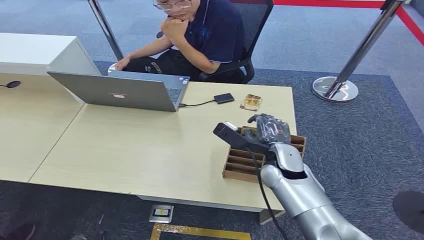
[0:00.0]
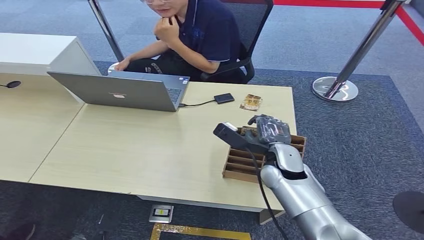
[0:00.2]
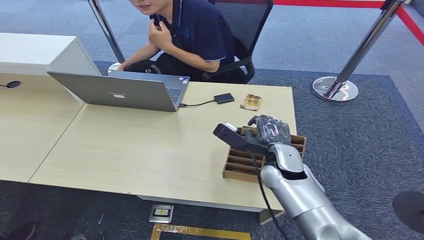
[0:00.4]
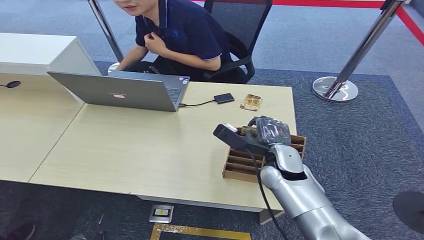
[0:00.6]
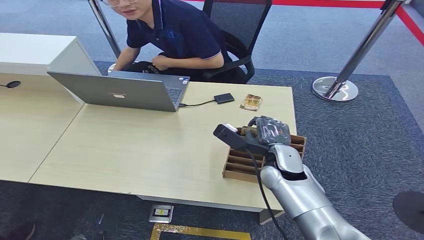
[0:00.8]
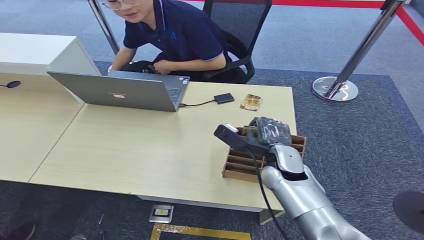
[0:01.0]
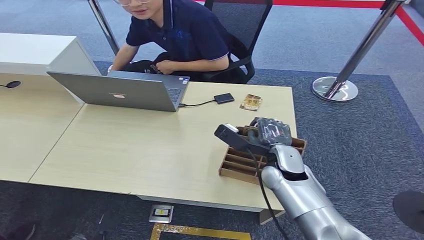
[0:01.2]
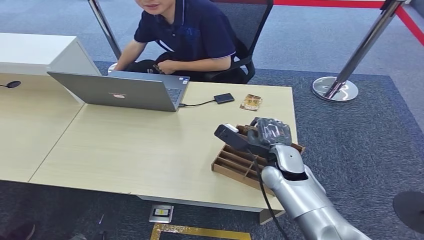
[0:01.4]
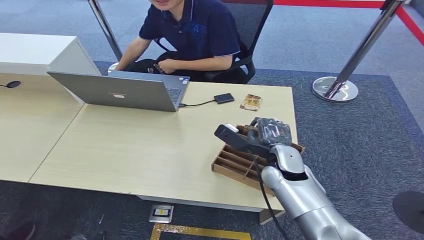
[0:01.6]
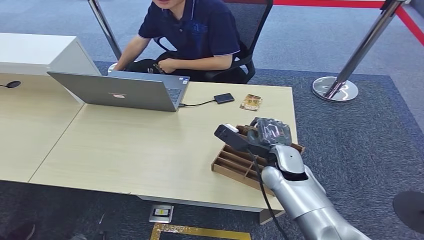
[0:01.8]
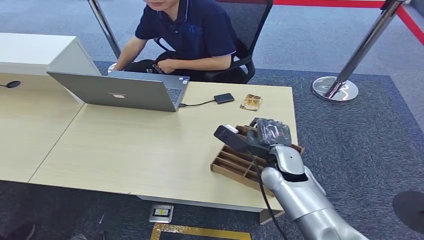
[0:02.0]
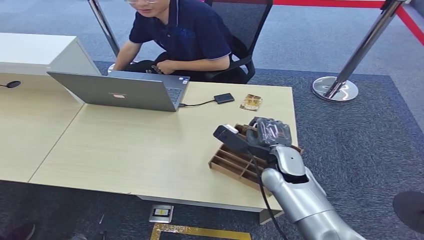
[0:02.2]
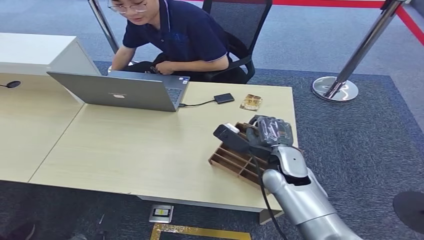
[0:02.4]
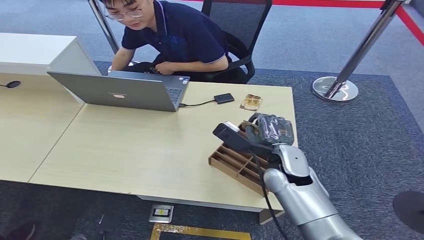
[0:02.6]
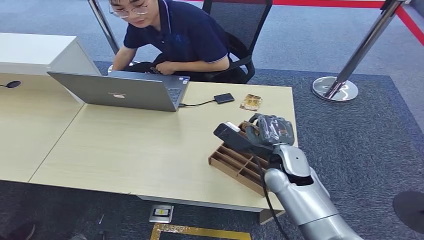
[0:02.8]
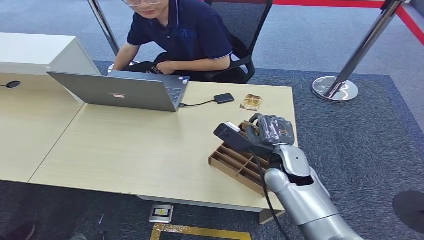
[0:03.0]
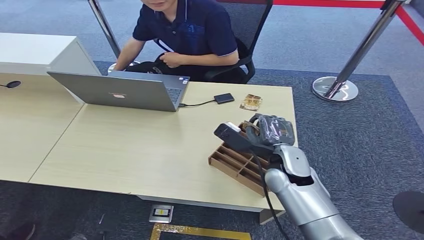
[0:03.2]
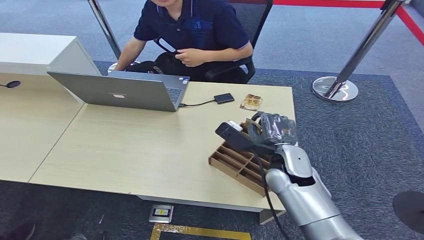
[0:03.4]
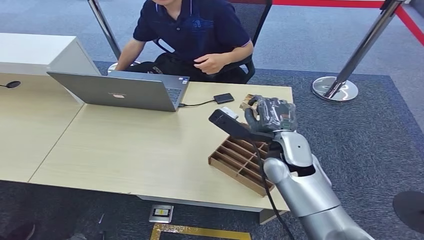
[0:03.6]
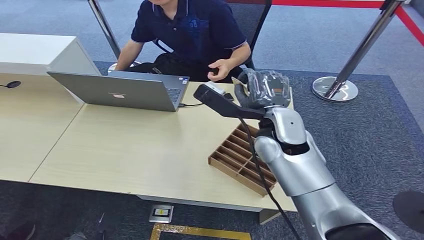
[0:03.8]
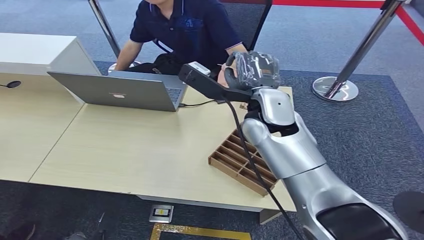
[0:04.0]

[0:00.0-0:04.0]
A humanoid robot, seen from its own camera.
Step, 0:00.0 to 0:03.4: Pick up the key card from the card box.
Step, 0:03.6 to 0:04.0: Hand the key card to the target.
0:01.4 to 0:02.6: The hands stay close to where they were, moving slightly.
0:02.6 to 0:04.0: The right hand is displaced upward, forward and to the left by roughly 20 cm.

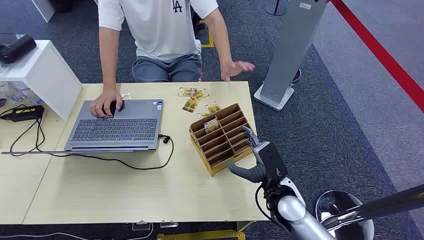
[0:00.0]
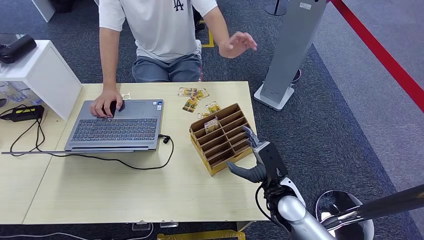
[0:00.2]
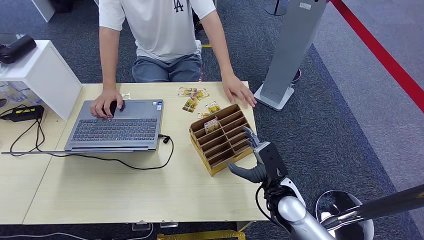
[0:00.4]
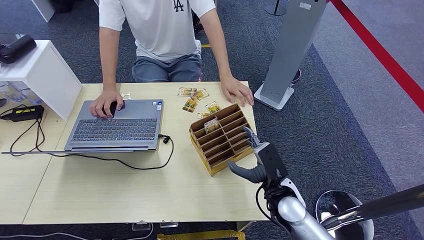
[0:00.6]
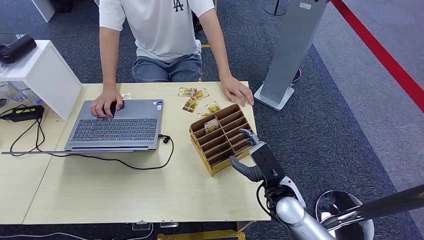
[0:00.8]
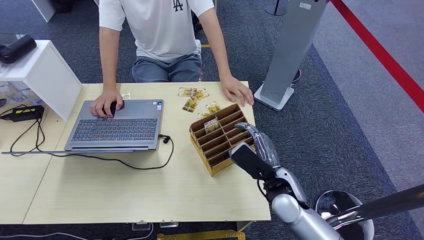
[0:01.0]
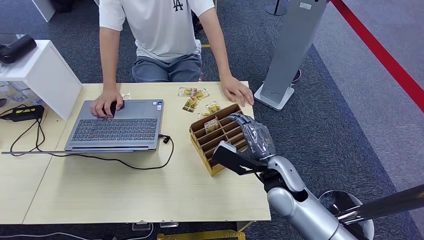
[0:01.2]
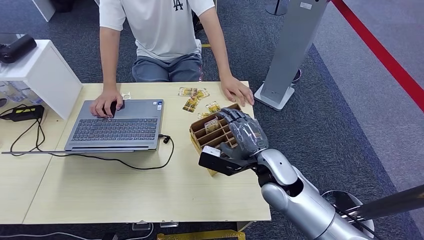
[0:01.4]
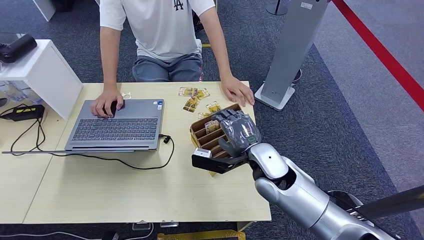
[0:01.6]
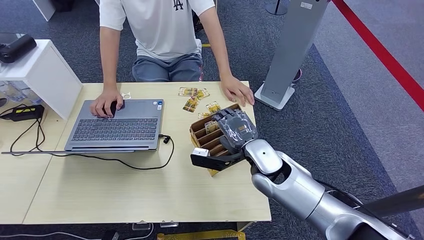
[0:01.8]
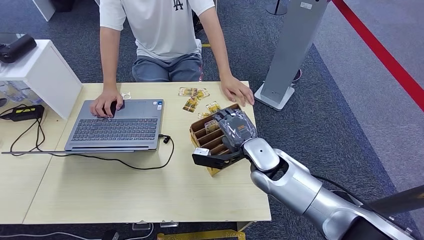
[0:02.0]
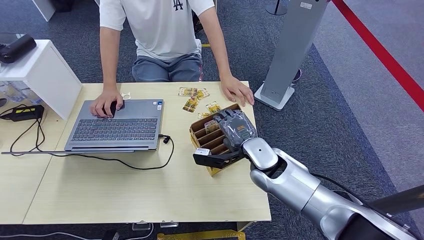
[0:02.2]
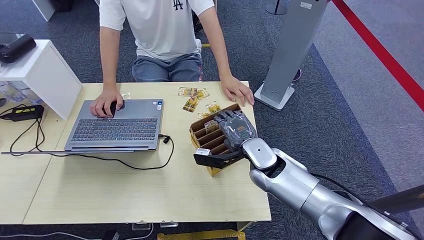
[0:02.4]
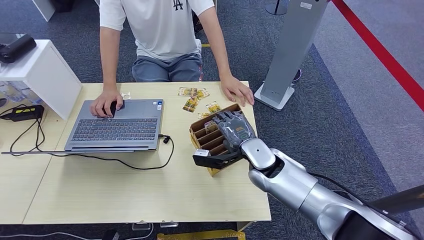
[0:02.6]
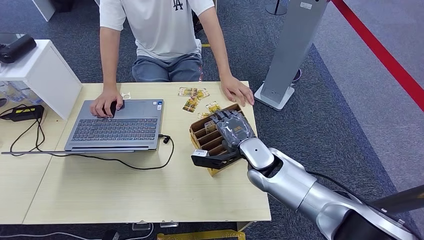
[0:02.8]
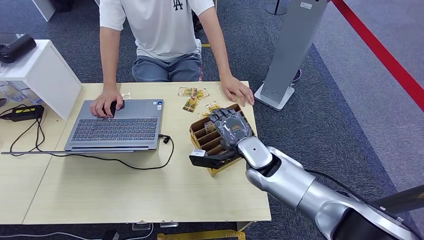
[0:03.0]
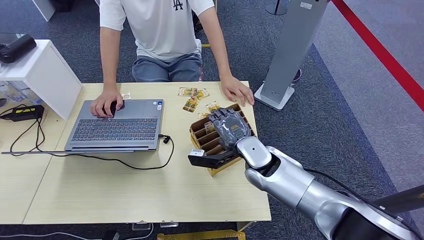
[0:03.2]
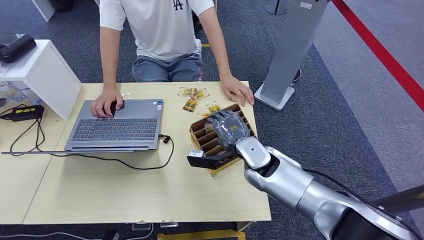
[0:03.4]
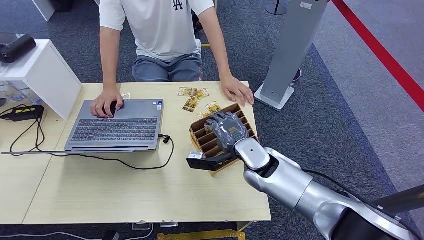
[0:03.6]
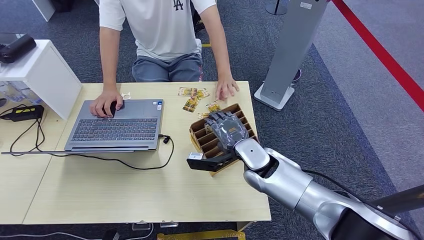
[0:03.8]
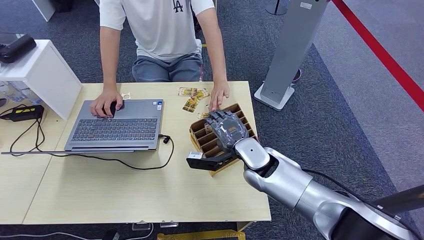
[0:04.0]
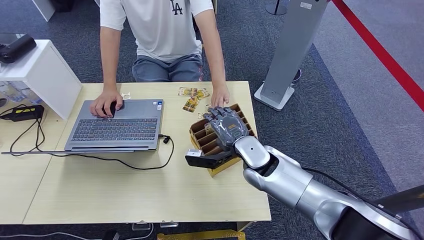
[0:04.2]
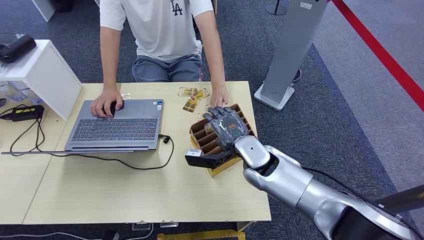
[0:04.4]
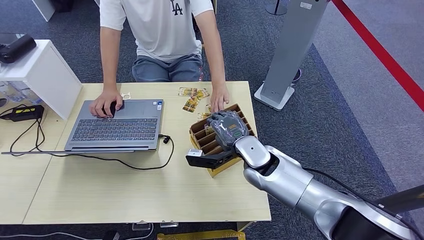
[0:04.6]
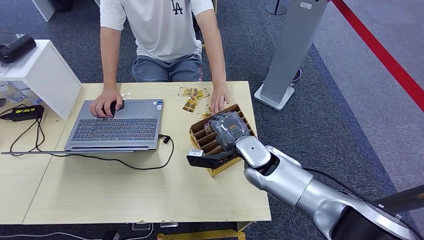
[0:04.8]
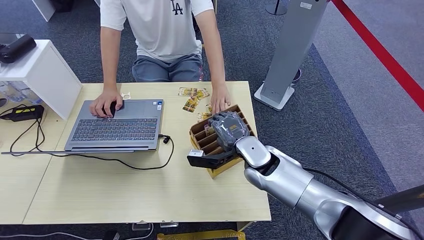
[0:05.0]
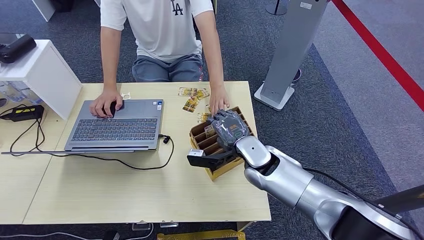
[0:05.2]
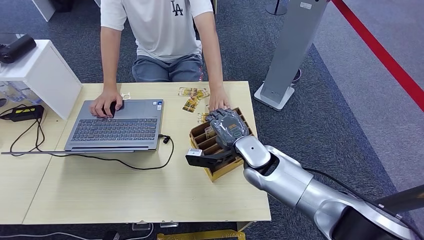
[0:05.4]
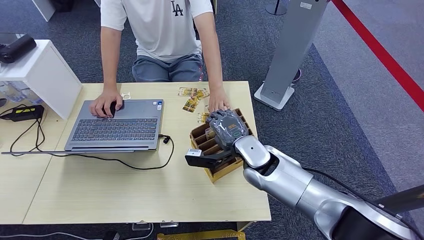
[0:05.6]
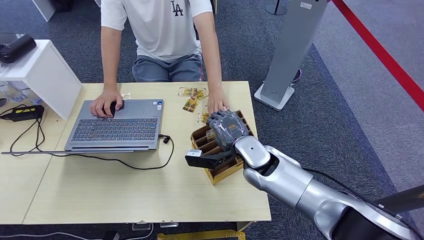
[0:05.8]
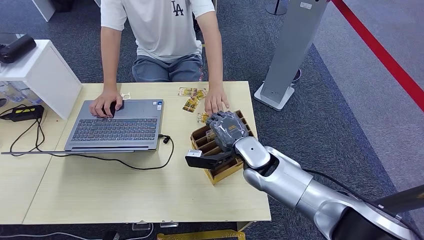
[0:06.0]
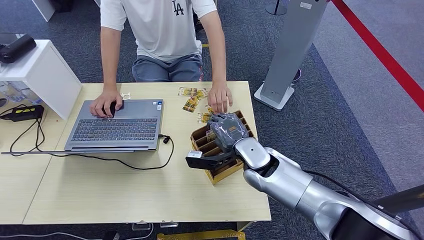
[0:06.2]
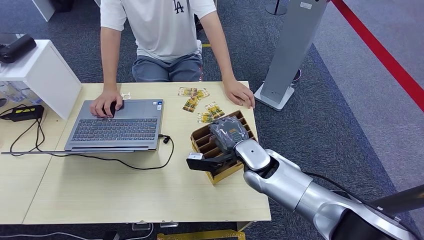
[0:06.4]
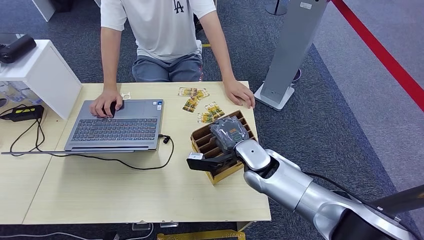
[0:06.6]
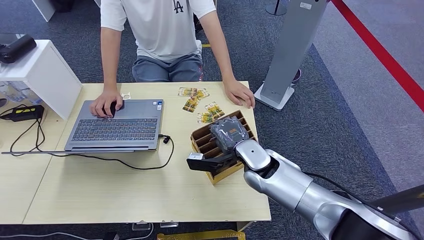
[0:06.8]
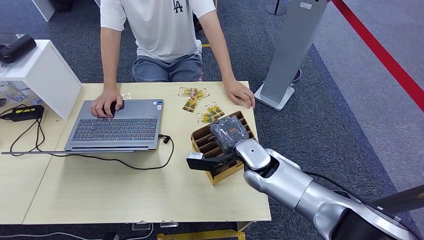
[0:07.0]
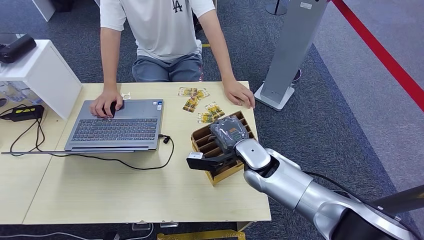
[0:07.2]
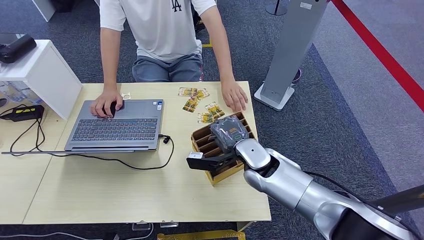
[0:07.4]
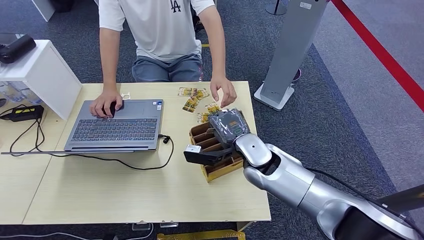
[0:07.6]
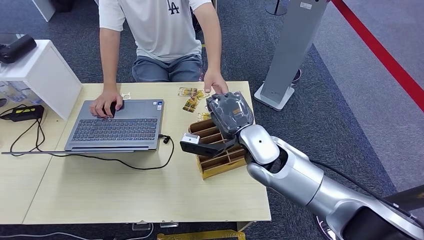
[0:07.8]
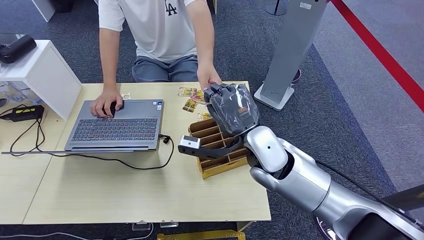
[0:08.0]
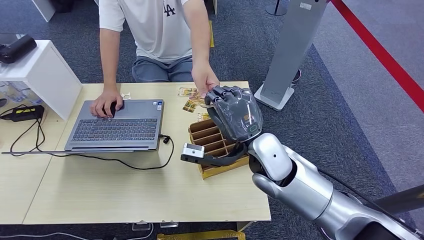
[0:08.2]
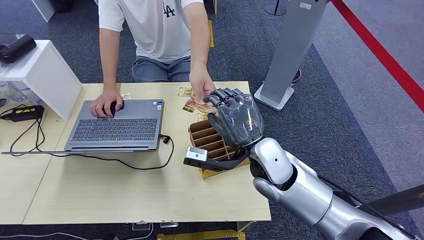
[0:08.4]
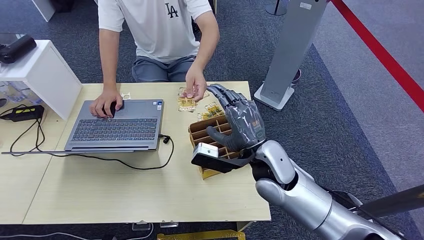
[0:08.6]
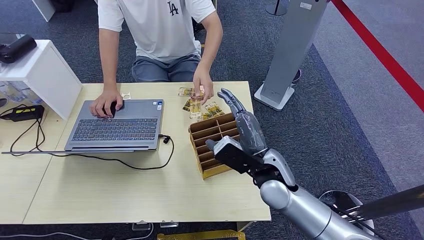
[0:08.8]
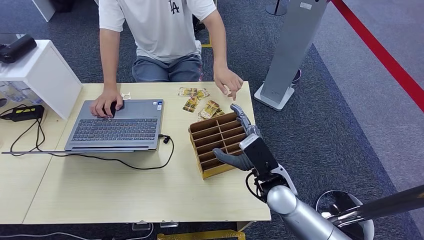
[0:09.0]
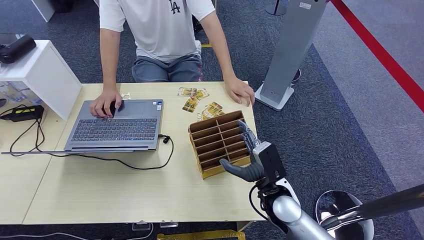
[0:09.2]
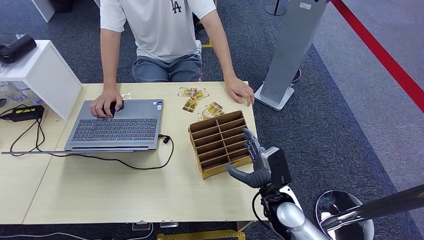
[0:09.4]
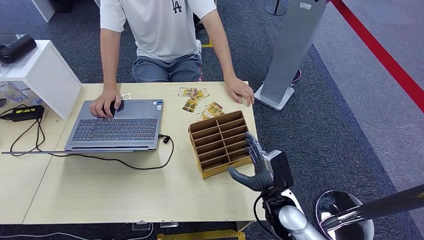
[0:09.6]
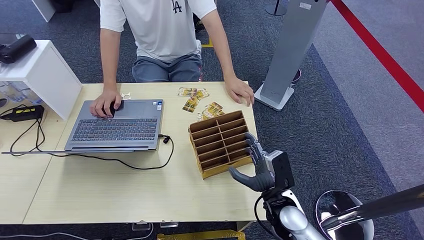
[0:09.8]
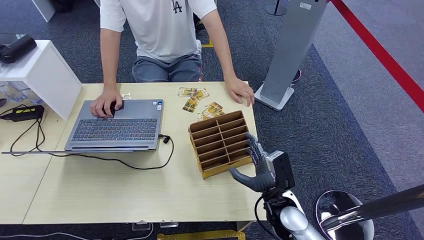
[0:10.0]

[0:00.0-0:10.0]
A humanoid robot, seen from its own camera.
Step, 0:00.0 to 0:07.4: Pick up the key card from the card box.
Step, 0:07.8 to 0:10.0: Hand the key card to the target.
0:01.4 to 0:02.8: The right hand is displaced forward by approximately 5 cm.
0:02.8 to 0:04.2: The hands move only a little.
0:04.2 to 0:07.2: Neither hand changes place.
0:07.2 to 0:08.6: The right hand shifts approximately 5 cm upward.
0:08.6 to 0:10.0: The right hand shifts approximately 15 cm downward, backward and to the right.

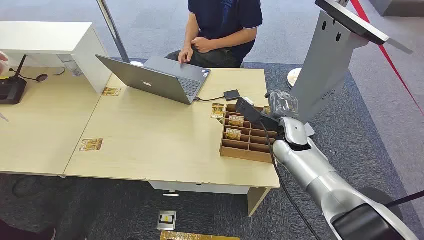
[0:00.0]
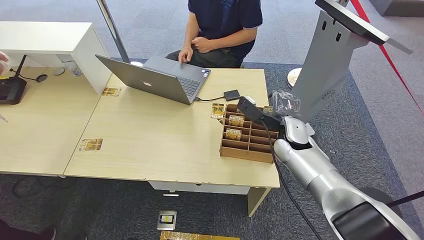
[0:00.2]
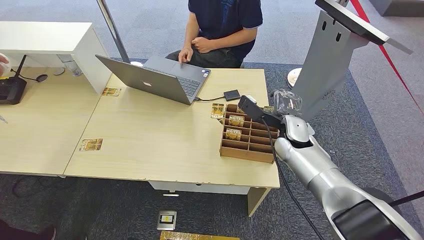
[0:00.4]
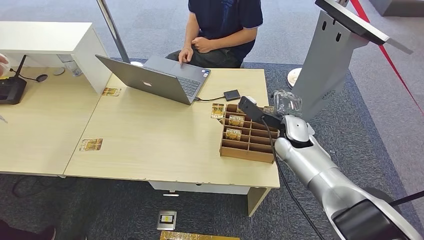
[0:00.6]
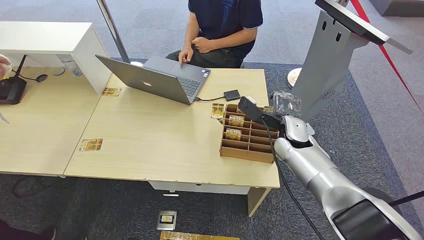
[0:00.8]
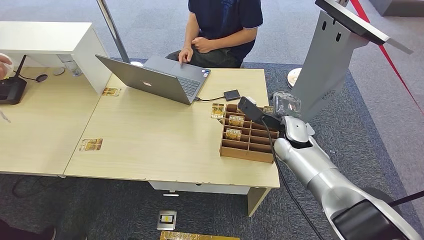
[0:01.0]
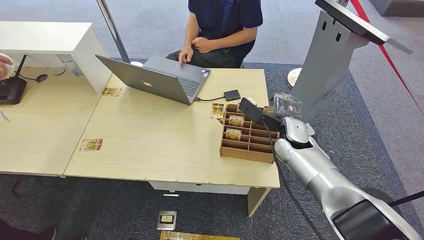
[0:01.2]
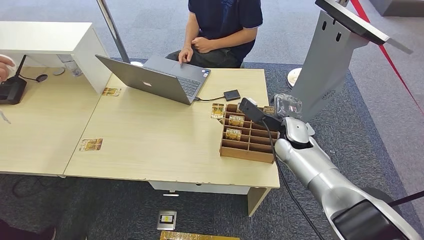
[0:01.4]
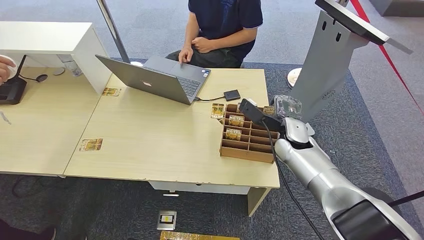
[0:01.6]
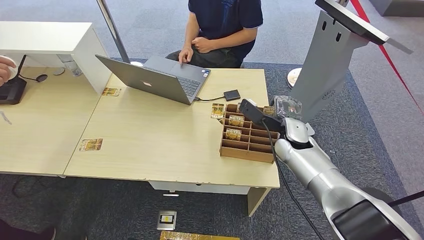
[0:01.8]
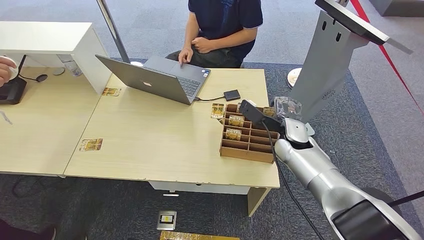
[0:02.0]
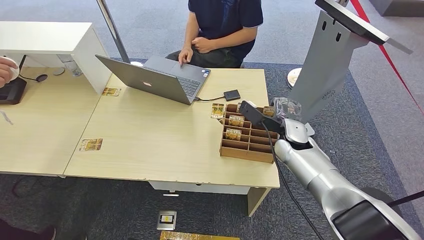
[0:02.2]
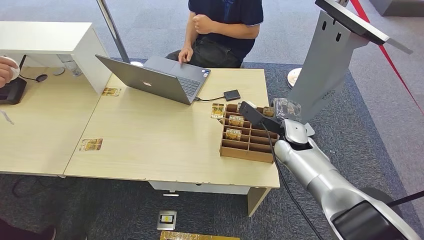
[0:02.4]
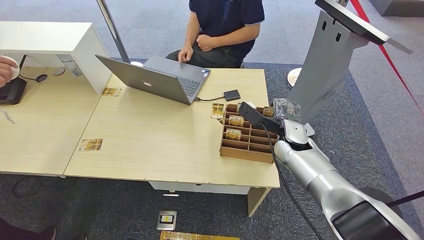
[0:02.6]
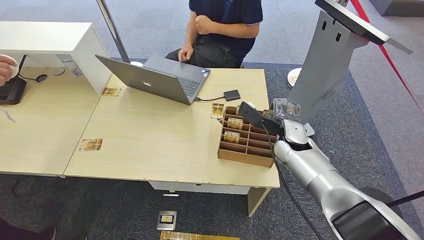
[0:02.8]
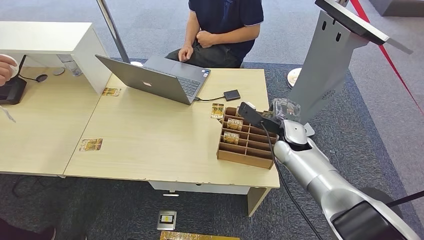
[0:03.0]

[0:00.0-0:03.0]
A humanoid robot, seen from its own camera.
0:01.6 to 0:03.0: Both hands stay about where they are.
